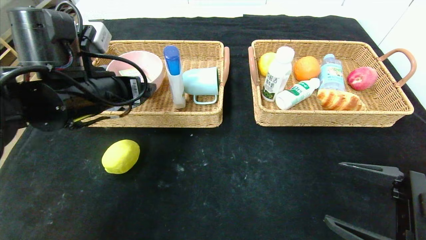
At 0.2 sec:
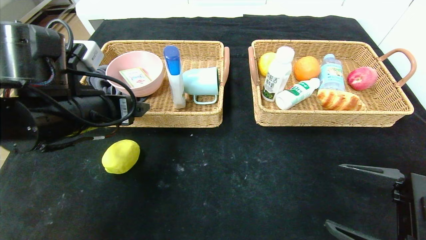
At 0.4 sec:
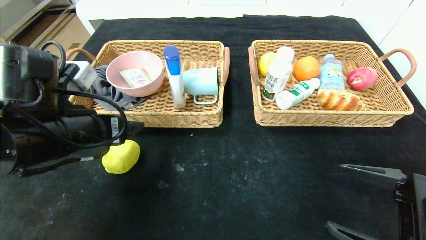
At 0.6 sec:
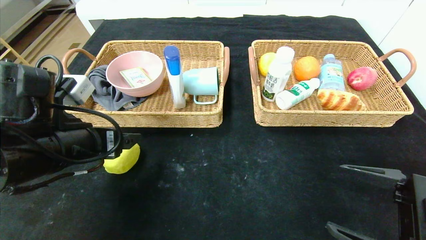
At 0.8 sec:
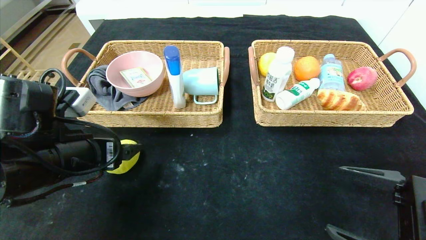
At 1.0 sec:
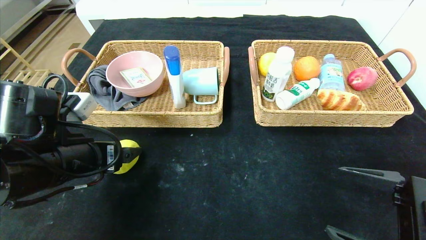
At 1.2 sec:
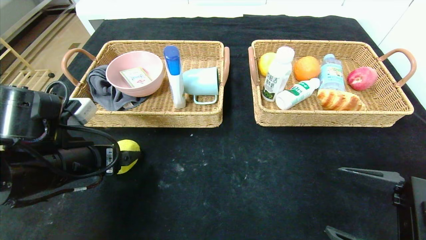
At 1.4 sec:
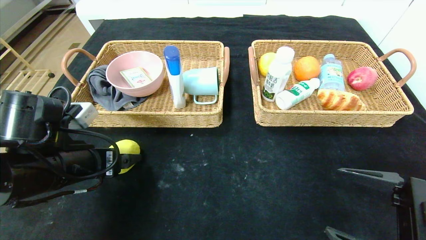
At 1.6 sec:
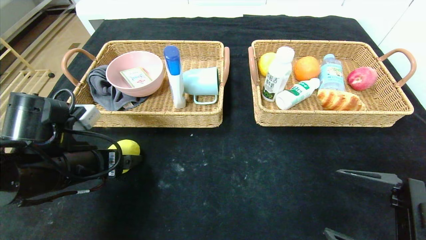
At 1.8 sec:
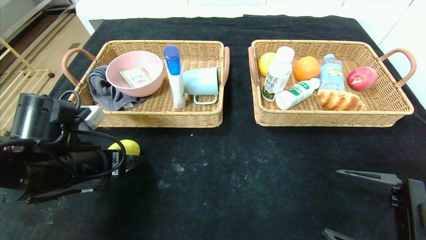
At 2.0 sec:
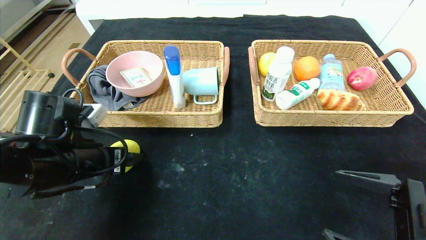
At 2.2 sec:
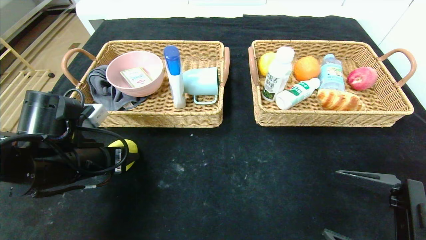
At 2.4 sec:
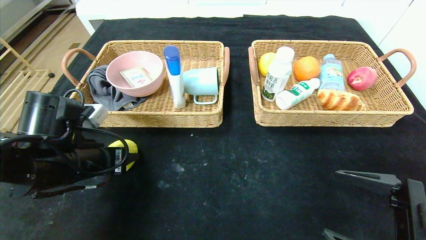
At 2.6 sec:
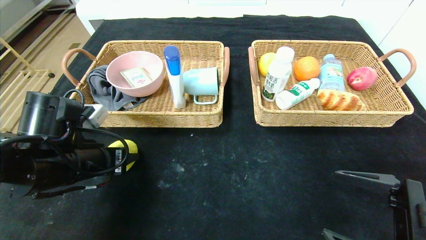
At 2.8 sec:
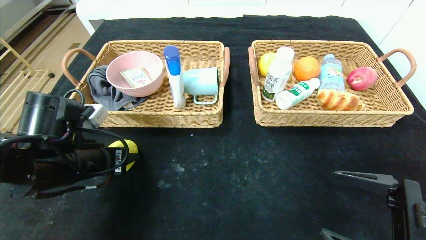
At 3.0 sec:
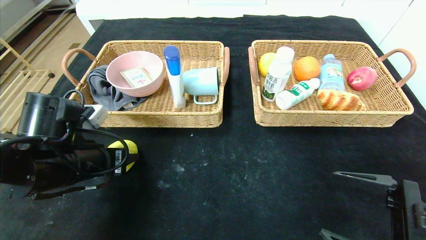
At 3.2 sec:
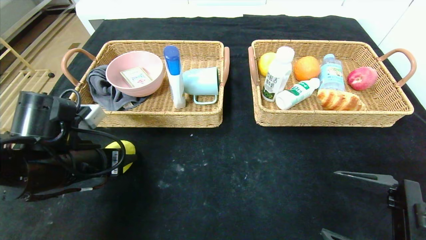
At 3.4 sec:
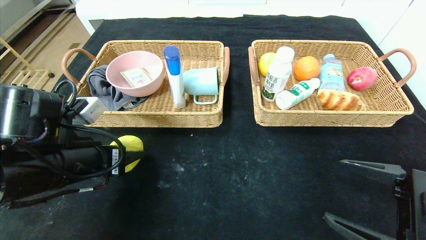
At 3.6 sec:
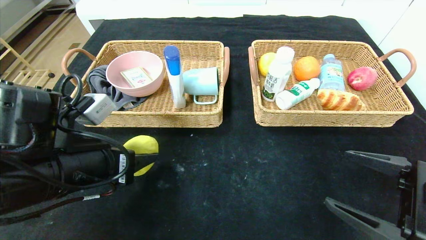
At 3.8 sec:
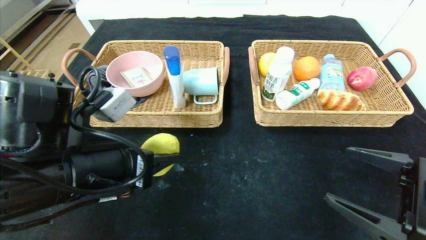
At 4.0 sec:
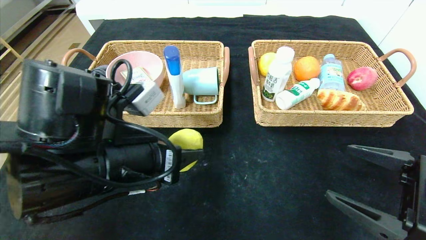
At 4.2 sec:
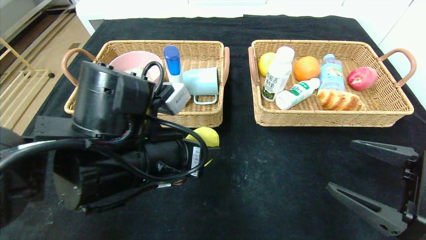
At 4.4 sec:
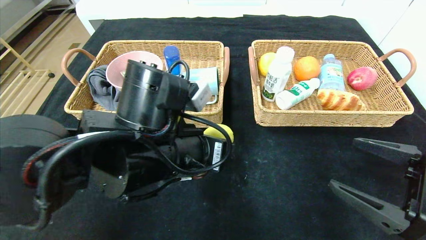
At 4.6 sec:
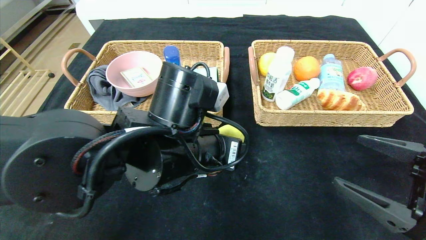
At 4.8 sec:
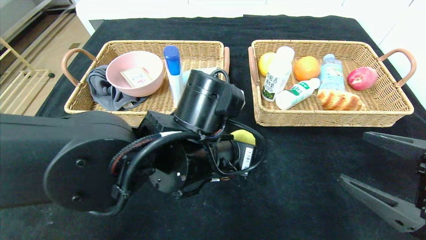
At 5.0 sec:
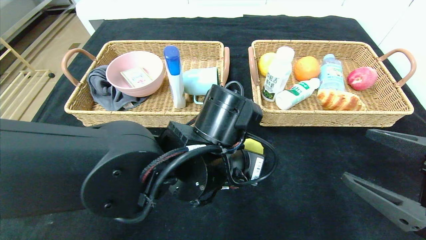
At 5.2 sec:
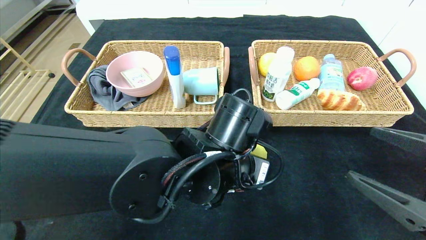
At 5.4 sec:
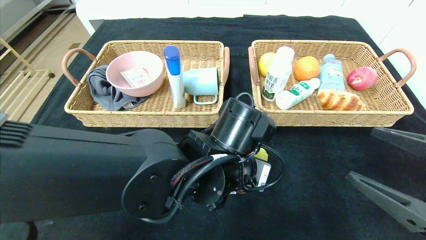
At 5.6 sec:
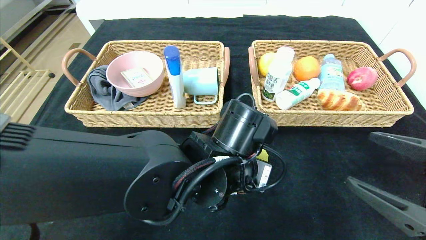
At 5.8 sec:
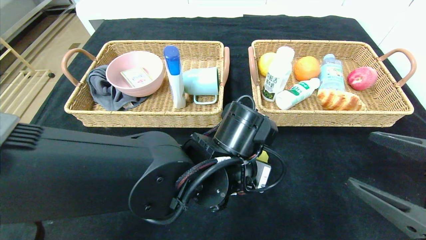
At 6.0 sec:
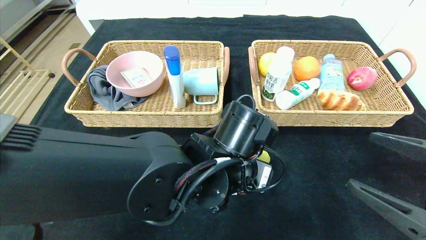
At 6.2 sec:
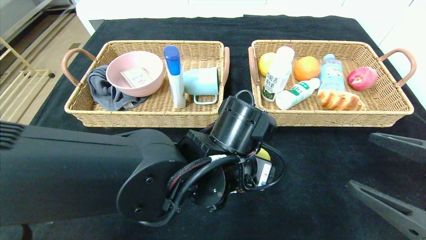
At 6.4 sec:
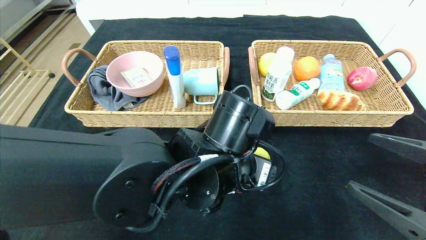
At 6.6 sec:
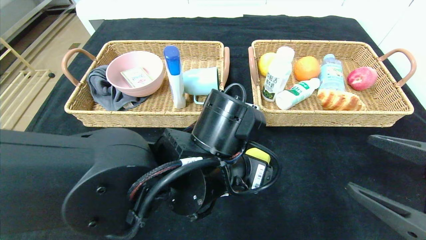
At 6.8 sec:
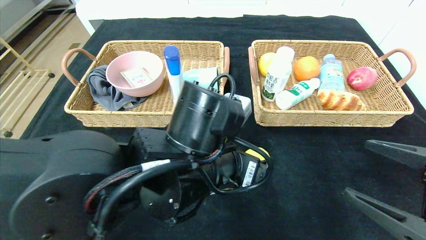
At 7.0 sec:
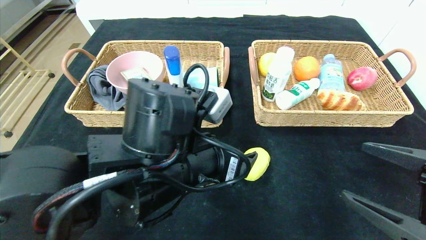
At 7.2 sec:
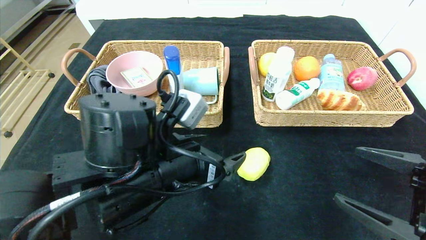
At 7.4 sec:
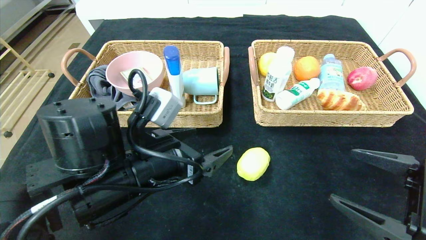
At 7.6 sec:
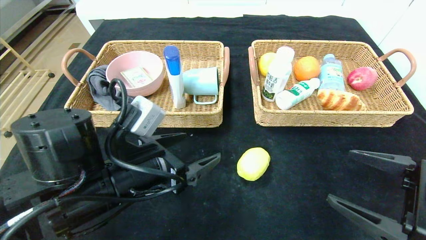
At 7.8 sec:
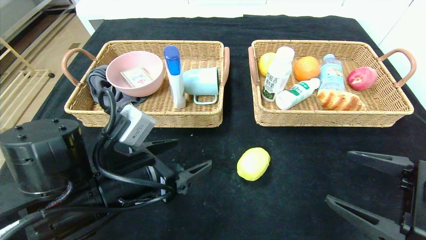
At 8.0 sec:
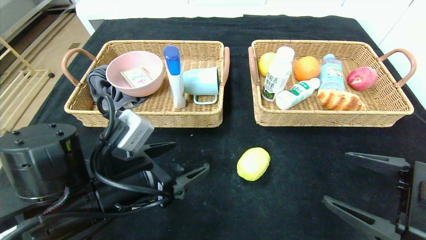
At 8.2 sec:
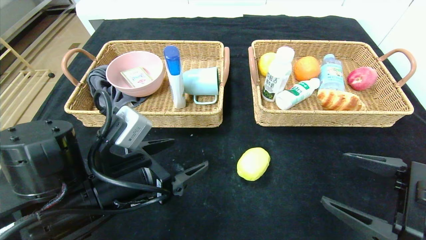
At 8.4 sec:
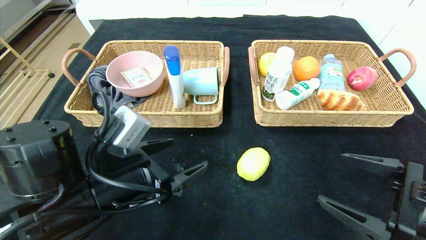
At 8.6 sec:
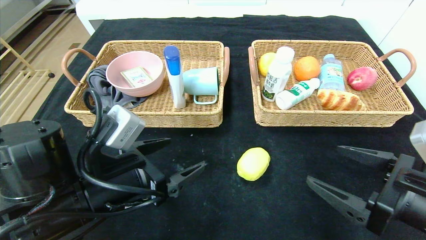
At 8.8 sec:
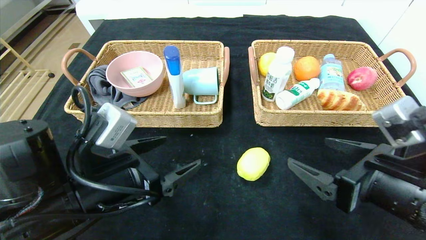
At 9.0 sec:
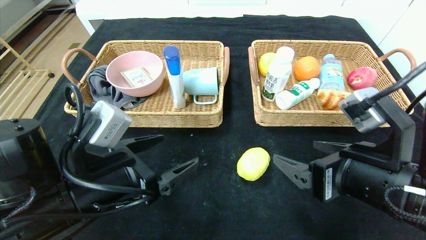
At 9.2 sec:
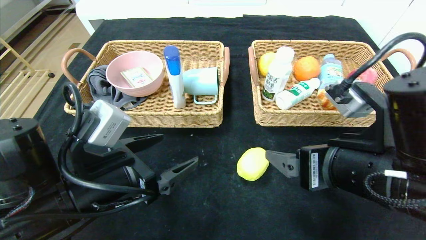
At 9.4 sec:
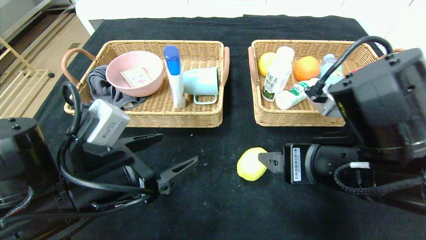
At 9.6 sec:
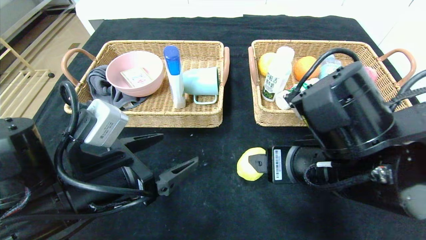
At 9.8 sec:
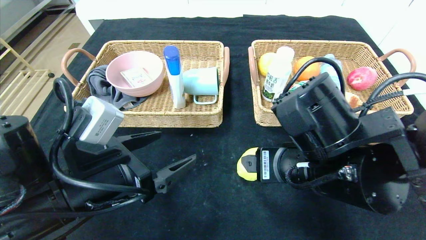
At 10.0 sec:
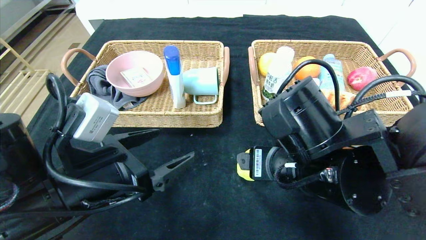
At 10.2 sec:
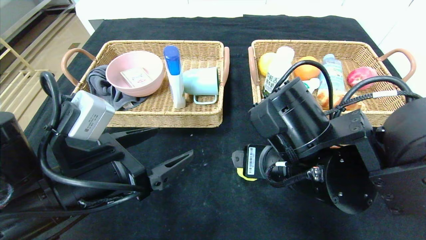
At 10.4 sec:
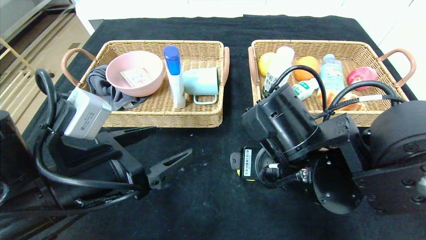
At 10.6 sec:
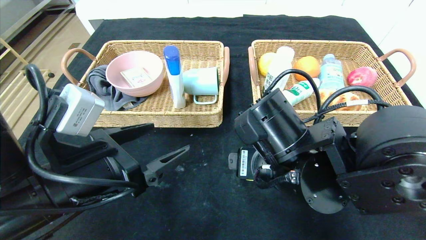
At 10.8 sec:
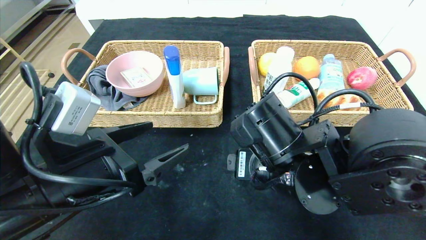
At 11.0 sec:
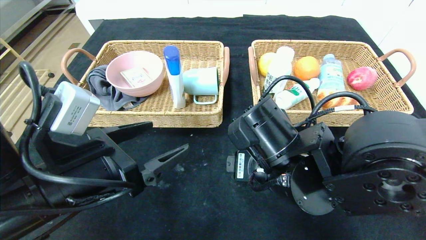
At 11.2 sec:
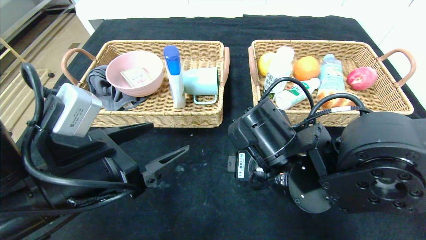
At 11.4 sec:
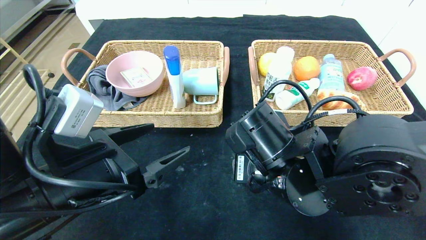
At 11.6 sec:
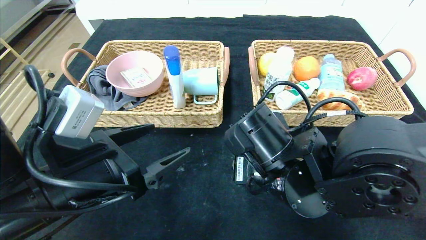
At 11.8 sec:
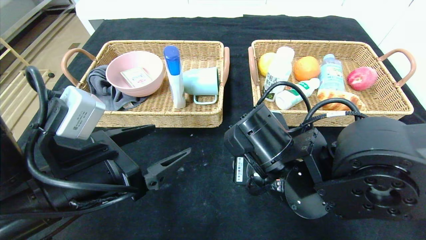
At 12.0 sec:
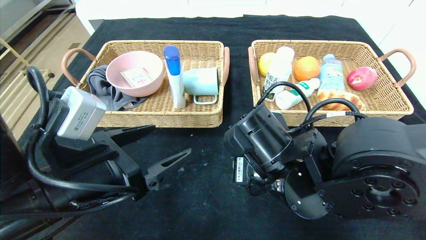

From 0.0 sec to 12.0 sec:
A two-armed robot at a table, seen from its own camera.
Step, from 0.0 sec to 6.4 sec: Place the lemon and put it in the center of the table.
From 0.0 sec to 1.6 sec: The left gripper goes about 10 cm downward.
From 1.6 sec to 3.0 sec: The left gripper closes up.
From 3.0 sec to 4.4 sec: The left gripper travels to the right by about 15 cm.
From 4.4 sec to 6.0 sec: The left gripper shifts about 10 cm to the right.
From 6.0 sec to 7.6 sec: The left gripper goes roughly 15 cm to the left.
From 7.6 sec to 9.0 sec: The right gripper travels to the left by about 10 cm.
From 9.0 sec to 10.4 sec: The right gripper moves to the left, approximately 10 cm.
From 10.4 sec to 12.0 sec: The right gripper closes up.

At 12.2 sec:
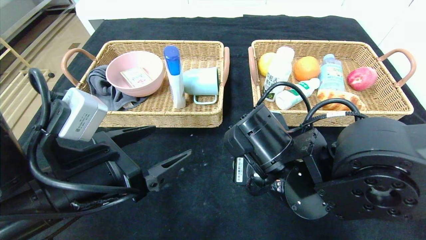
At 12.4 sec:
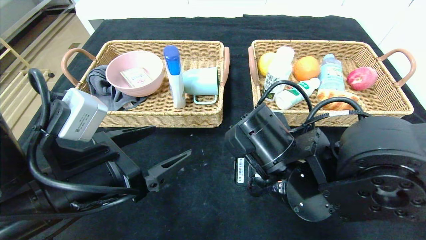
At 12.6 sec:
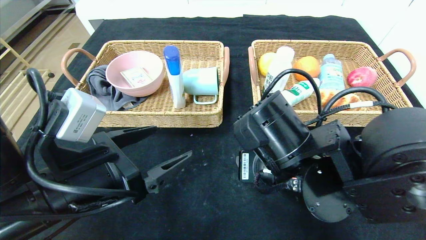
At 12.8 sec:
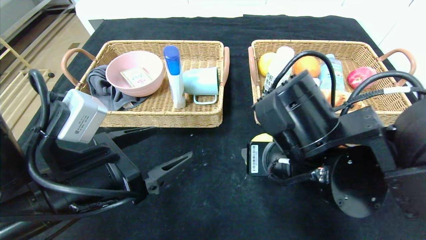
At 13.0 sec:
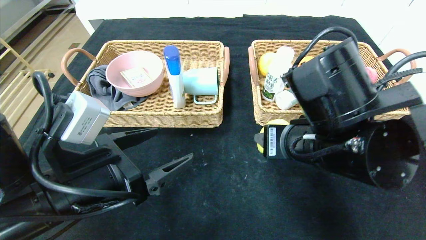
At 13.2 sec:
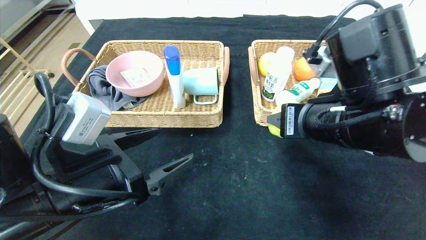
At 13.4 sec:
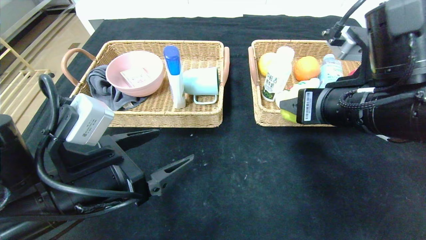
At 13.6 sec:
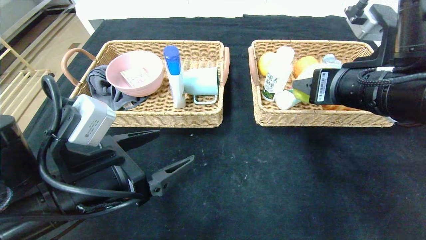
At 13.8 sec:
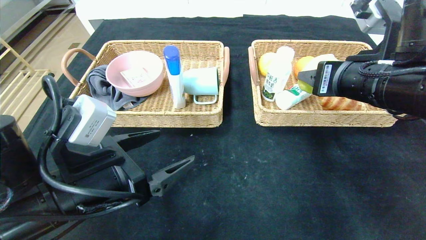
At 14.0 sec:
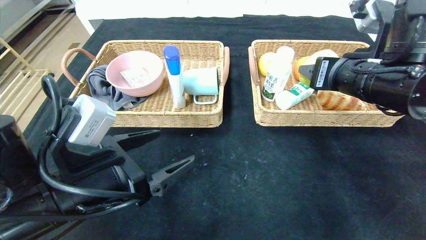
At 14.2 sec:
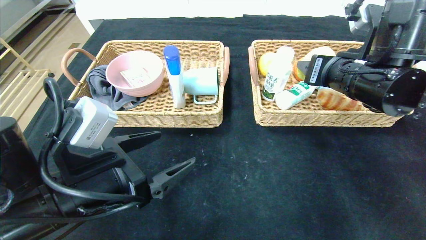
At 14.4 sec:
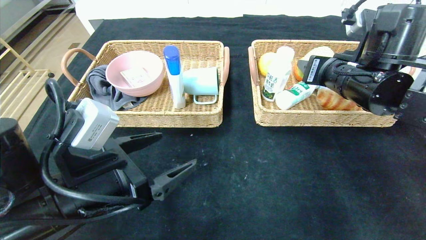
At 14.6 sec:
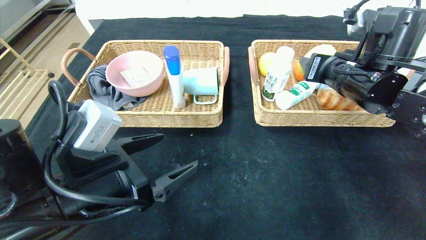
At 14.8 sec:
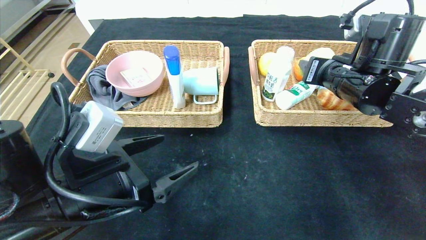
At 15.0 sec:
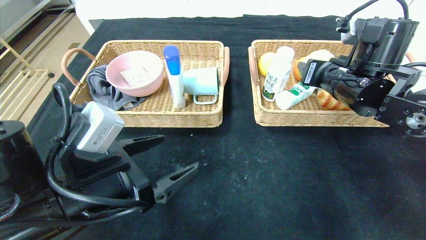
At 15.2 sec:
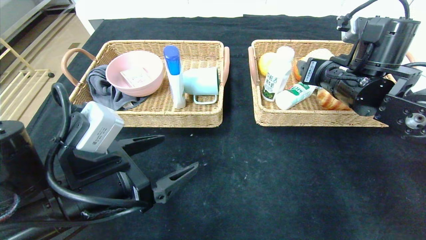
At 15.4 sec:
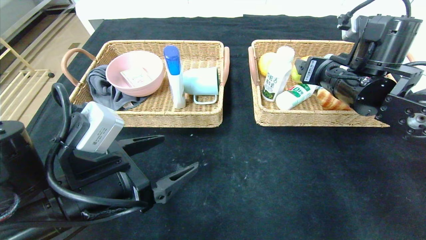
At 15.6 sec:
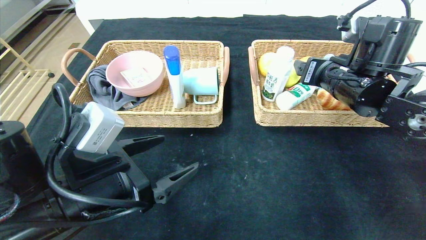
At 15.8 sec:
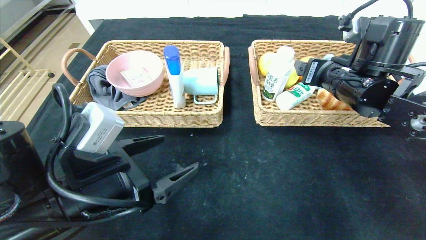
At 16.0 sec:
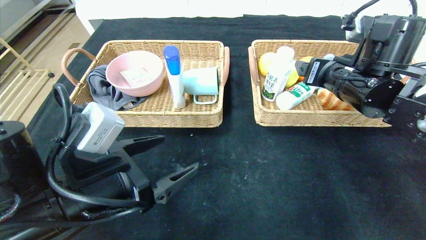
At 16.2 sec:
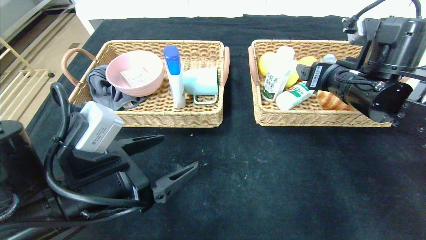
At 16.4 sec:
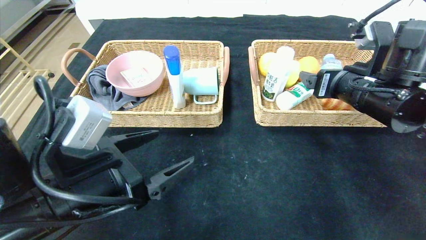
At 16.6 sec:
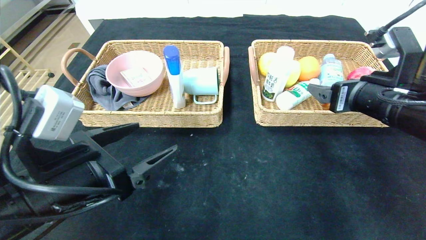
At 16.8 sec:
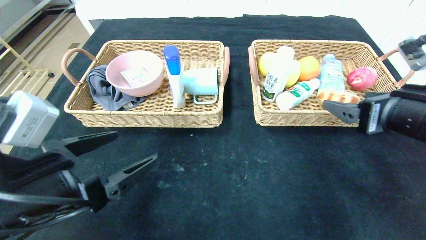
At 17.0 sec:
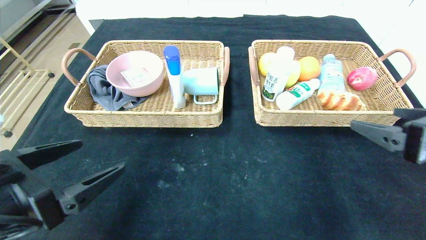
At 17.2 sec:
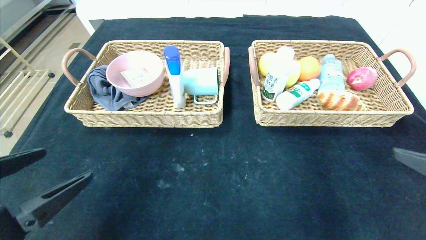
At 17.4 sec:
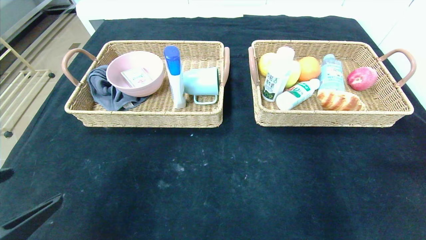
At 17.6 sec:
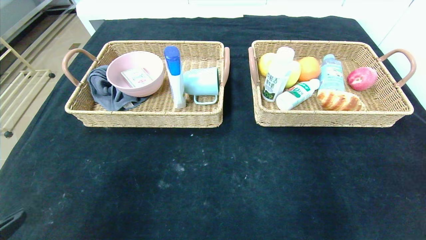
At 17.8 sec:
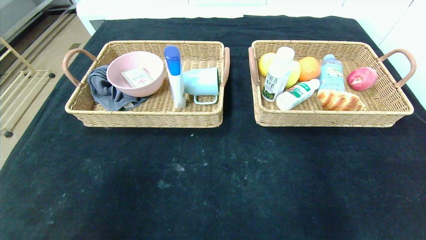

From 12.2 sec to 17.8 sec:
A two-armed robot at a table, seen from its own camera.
Step, from 12.2 sec to 15.6 sec: Grasp the lemon and put it in the right basket.
From 12.2 sec to 13.6 sec: The right gripper travels to the right and upward by some 15 cm.
From 13.6 sec to 15.0 sec: The right gripper heads forward, covering roughly 10 cm.
From 15.0 sec to 16.4 sec: The right gripper opens its fingers.
From 16.4 sec to 17.8 sec: The right gripper shifts roughly 35 cm backward and to the right. Meanwhile the left gripper heads backward and to the left, covering roughly 20 cm.
